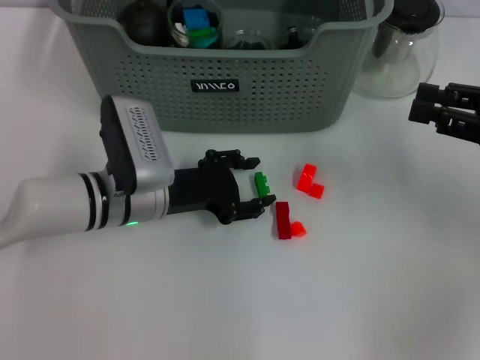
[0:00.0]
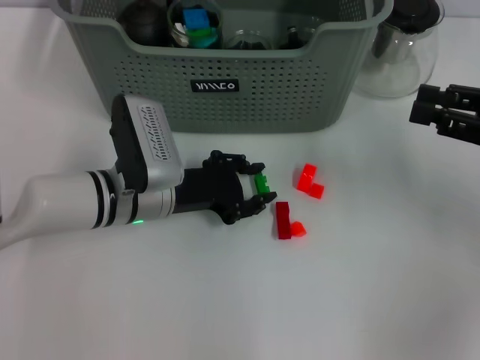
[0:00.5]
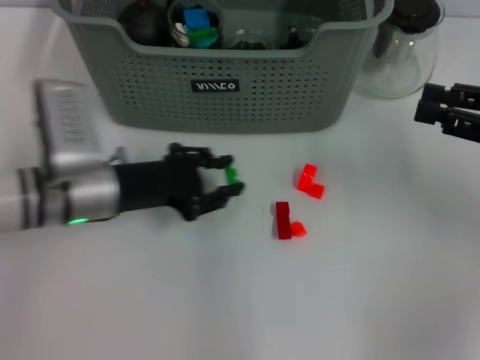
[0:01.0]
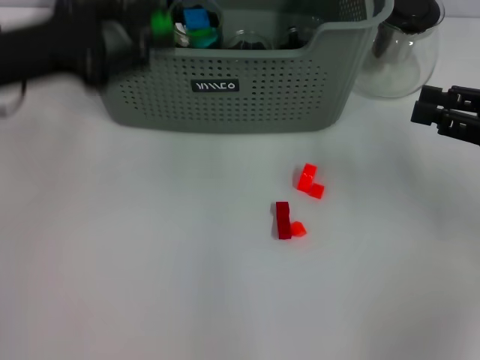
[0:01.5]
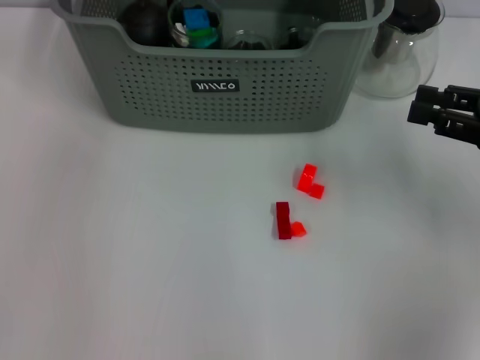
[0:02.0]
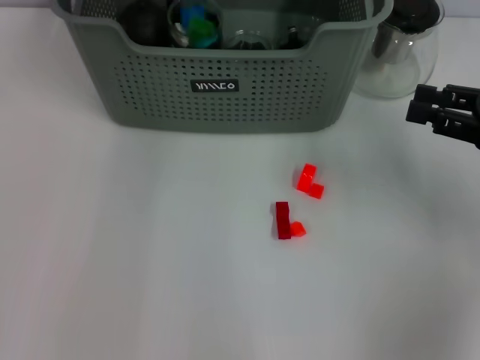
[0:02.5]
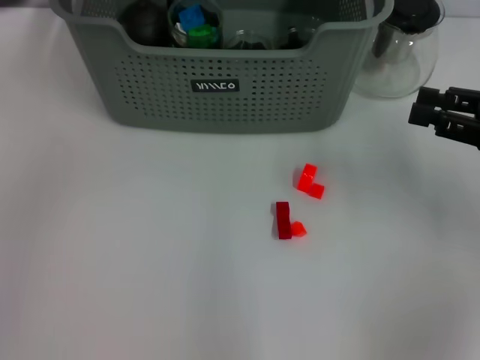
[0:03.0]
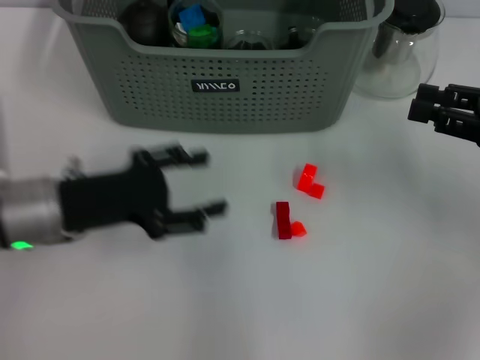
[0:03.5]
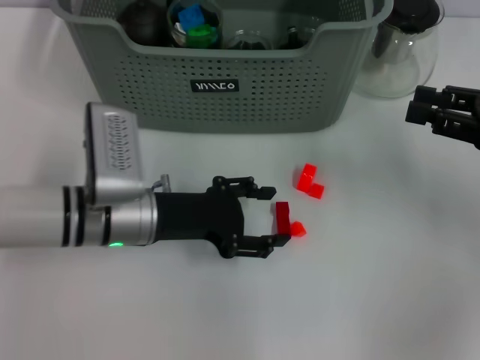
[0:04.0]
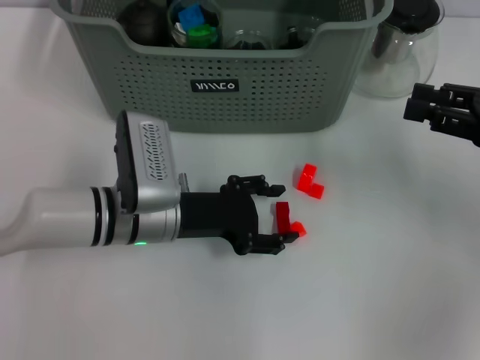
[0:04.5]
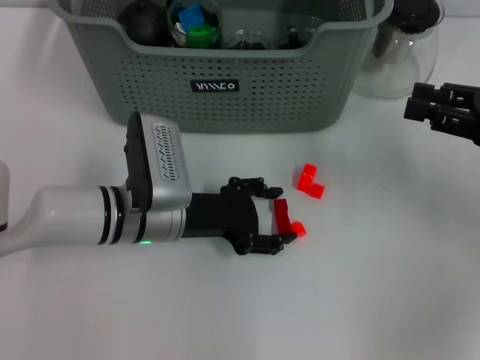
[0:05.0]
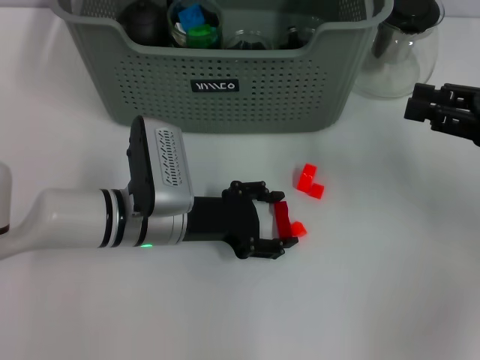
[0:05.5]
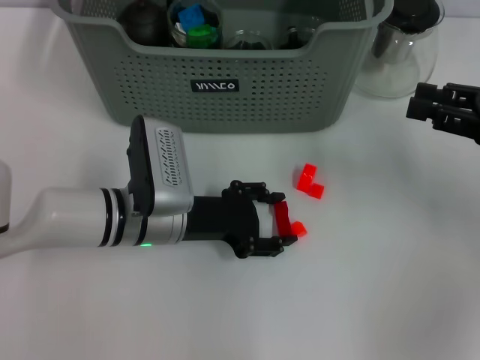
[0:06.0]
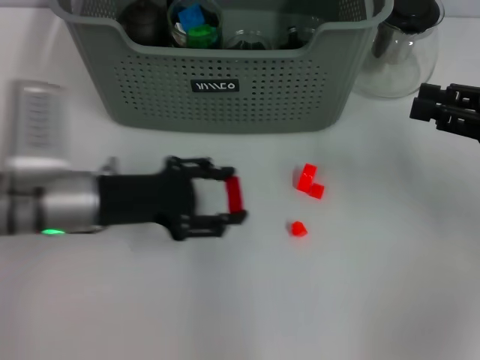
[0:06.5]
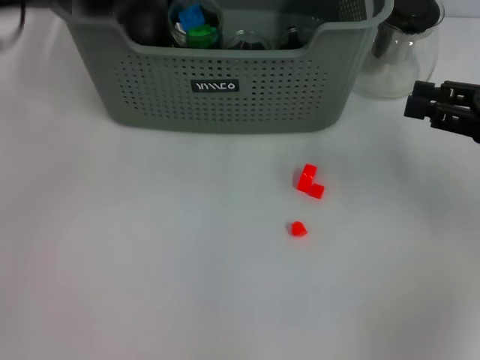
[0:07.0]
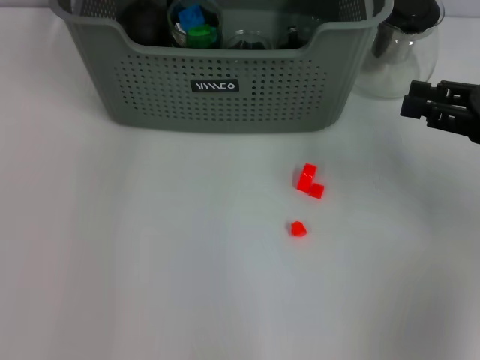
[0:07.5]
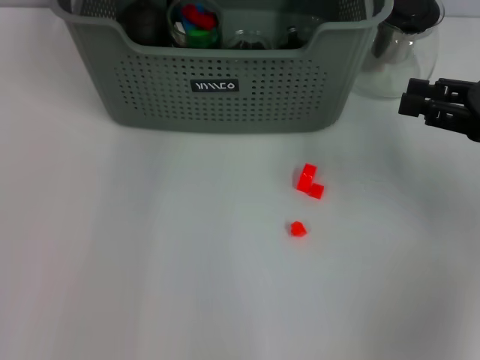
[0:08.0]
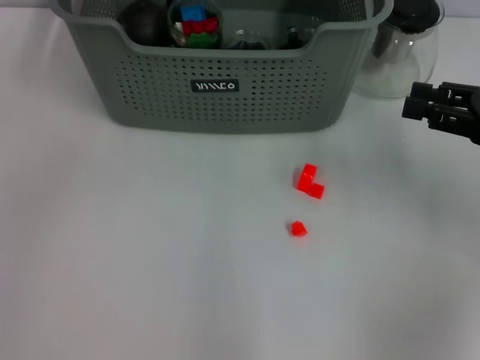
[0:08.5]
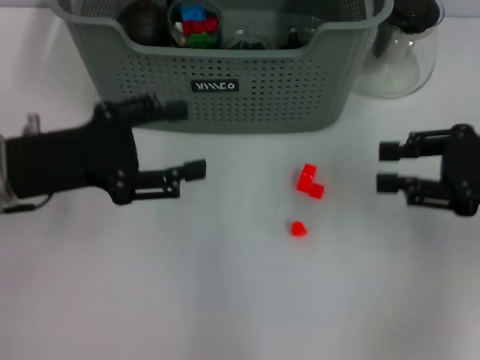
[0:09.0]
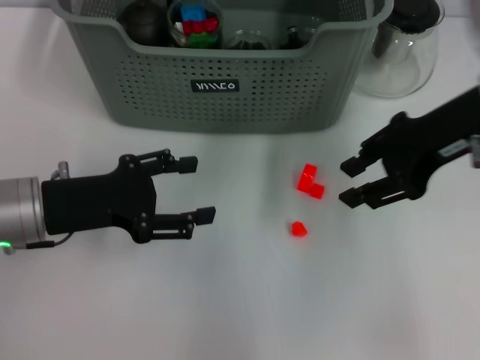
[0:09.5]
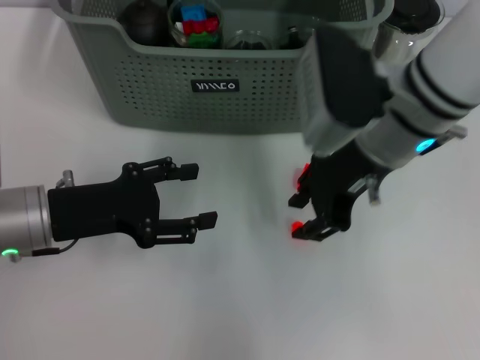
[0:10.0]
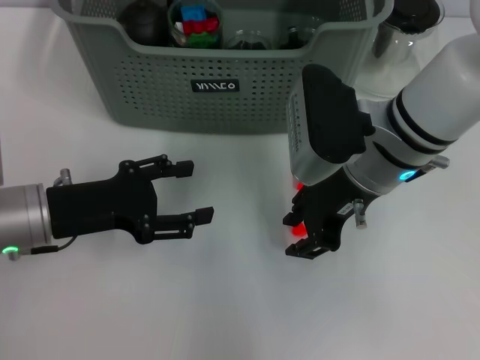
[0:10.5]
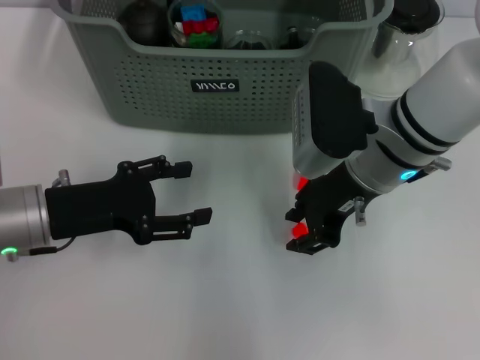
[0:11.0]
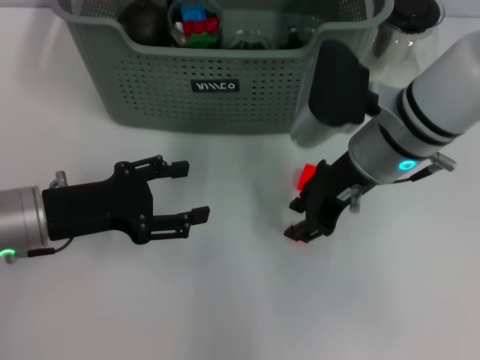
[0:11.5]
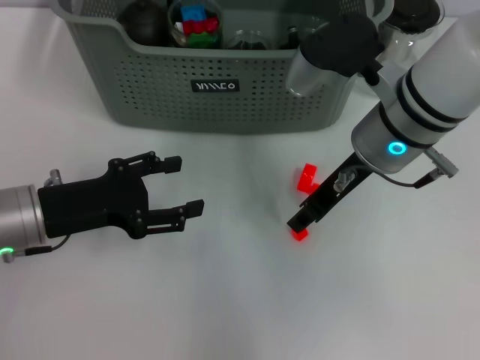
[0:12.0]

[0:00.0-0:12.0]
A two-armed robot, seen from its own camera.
Task of the whole recording: pick up the teacup on the table and place it into the storage bin, pick up the block on the table and place it into the storage bin.
Step, 1.0 to 2.5 s: Place the green block in the storage box with left gripper.
Step, 3.0 to 6.0 s: Grasp the red block with left gripper.
Step, 6.5 to 8.0 s: Place the red block in the storage box with left gripper.
0.0 to 2.0 s: The left gripper travels upward and forward by about 30 cm, and closes its fingers.
2.0 to 4.0 s: The left gripper travels downward and backward by roughly 30 cm, and opens up.
4.0 to 6.0 s: The grippers stay close to where they were, moving slightly.
6.0 to 8.0 s: The left gripper travels upward and forward by approximately 25 cm.
8.0 to 10.0 s: The left gripper moves backward, downward and to the left, about 30 cm. The right gripper is displaced to the left by approximately 20 cm.

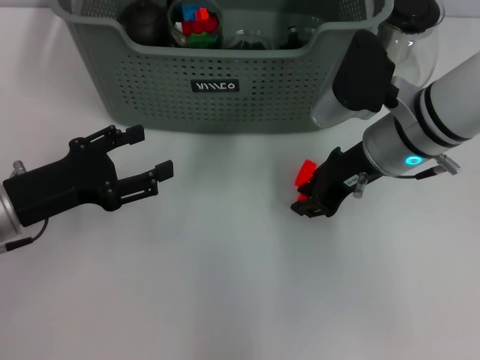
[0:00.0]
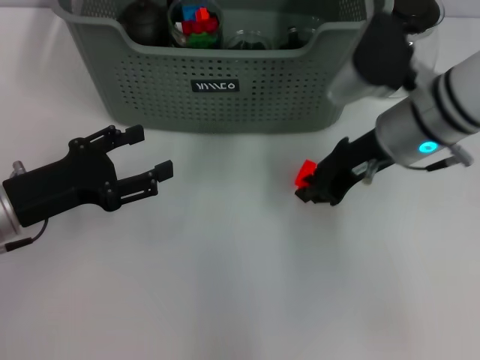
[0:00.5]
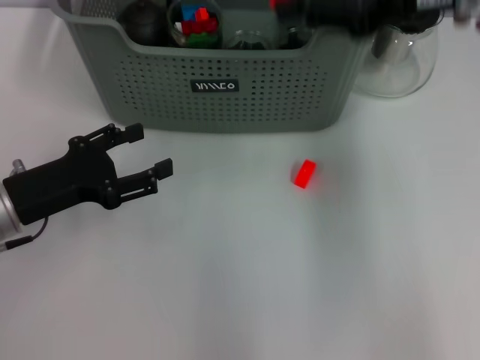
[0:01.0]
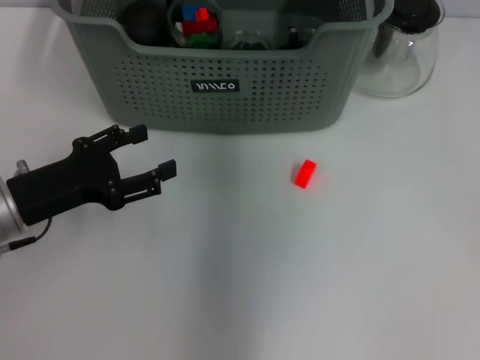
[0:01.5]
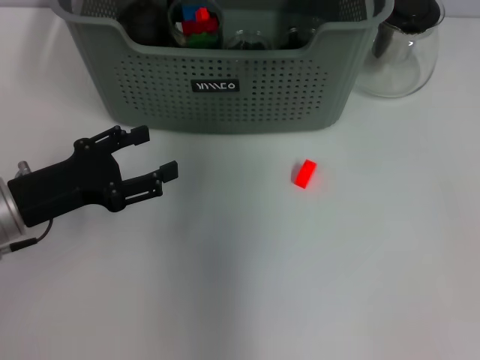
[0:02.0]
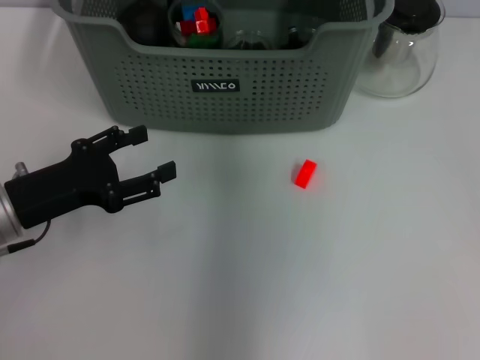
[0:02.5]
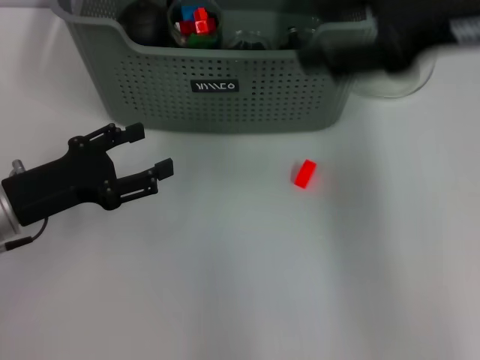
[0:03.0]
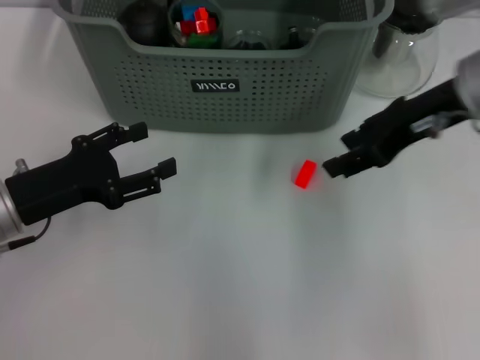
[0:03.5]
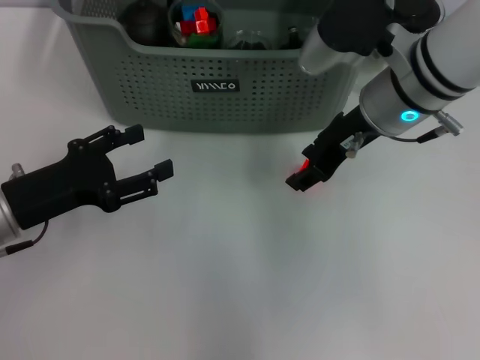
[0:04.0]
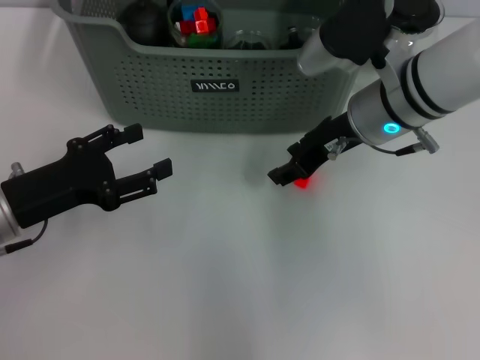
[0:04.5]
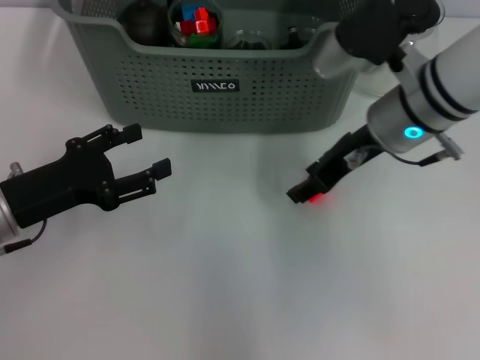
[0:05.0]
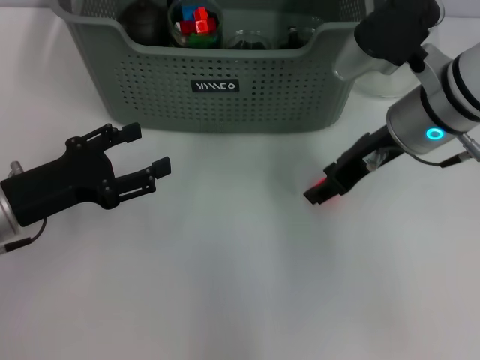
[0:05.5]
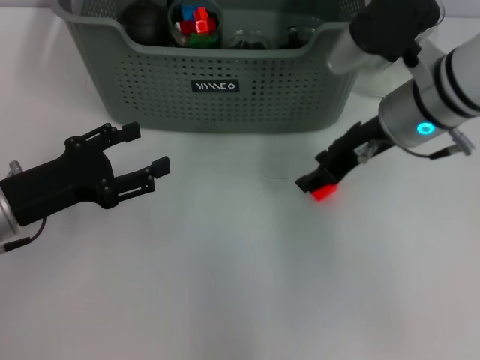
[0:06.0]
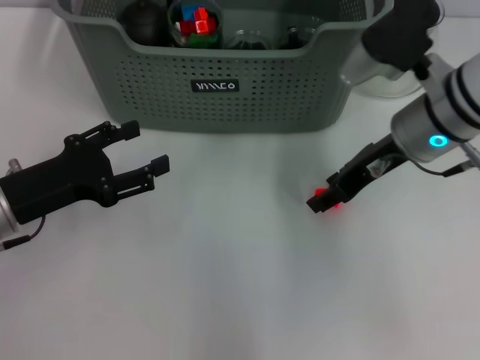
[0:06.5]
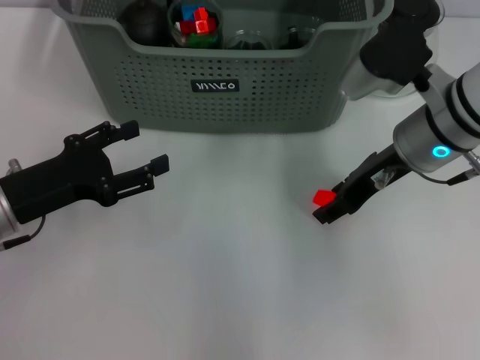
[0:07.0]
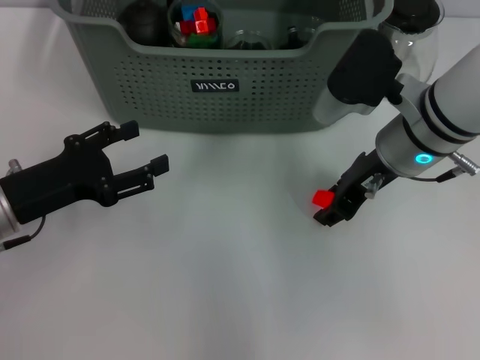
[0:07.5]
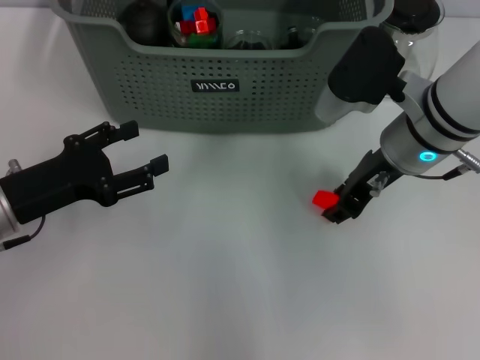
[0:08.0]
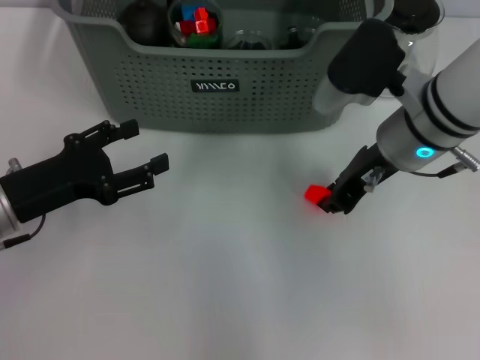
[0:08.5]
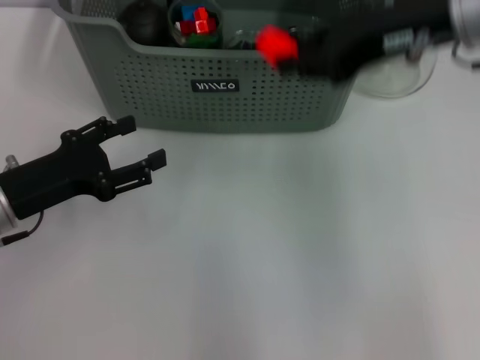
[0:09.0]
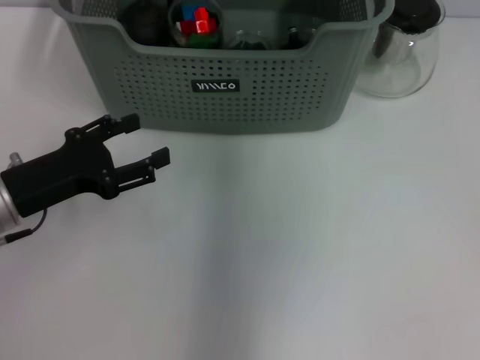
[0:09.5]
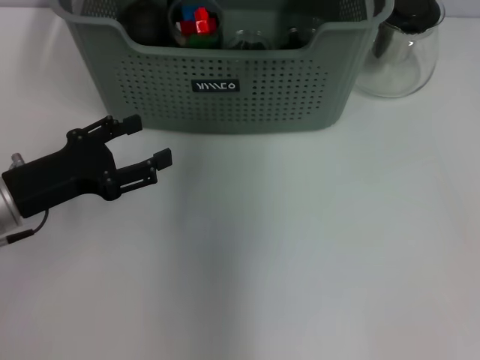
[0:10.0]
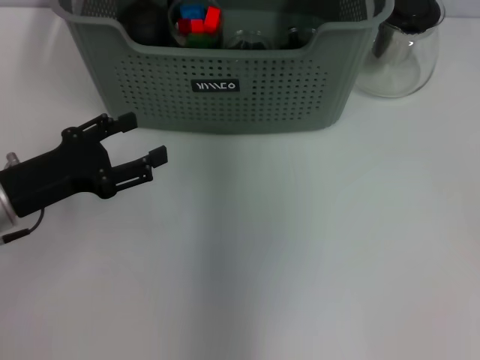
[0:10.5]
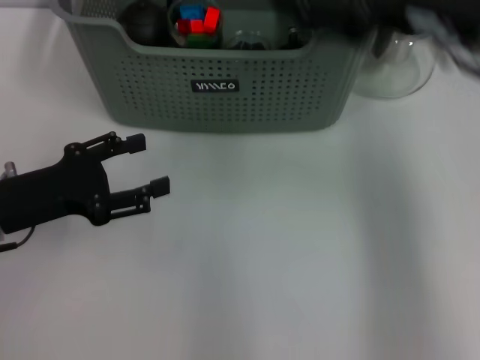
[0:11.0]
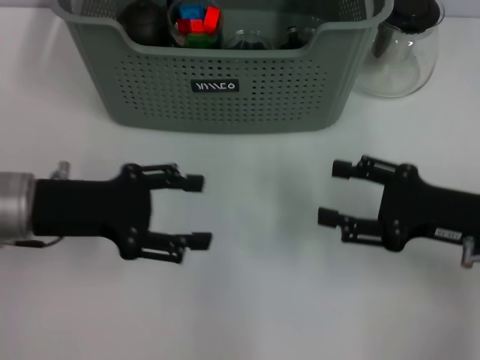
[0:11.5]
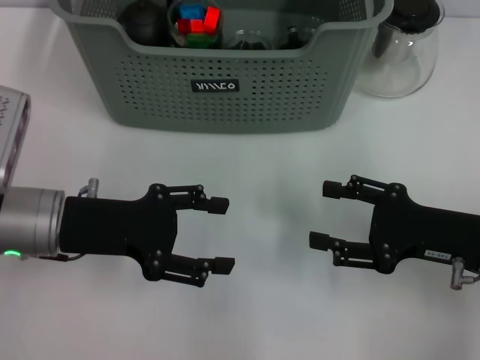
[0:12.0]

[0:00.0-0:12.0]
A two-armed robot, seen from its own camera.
Task of the whole recording: pick up the teacup on the table and place it into the storage bin, pick up the block on the table and place it into the storage bin.
Step, 0.5 to 2.0 s: Place the orange block in the storage box with right gripper.
Step, 2.5 to 8.0 s: Grasp the orange block with right gripper.
Step, 8.5 to 10.0 s: Place the orange block in the storage box with right gripper.
0.0 to 2.0 s: The right gripper goes roughly 20 cm upward, forward and to the left.
2.0 to 4.0 s: The right gripper goes some 15 cm backward, to the right and downward, and opens its fingers.
4.0 to 8.0 s: The grippers make only small movements.
8.0 to 10.0 s: The right gripper shifts some 20 cm forward, to the left and upward.
10.0 to 12.0 s: The right gripper travels backward, to the right and downward by approximately 35 cm, and opens its fingers.

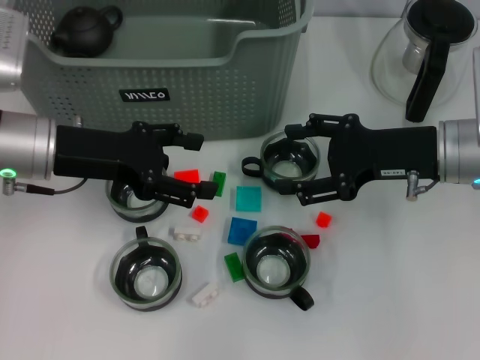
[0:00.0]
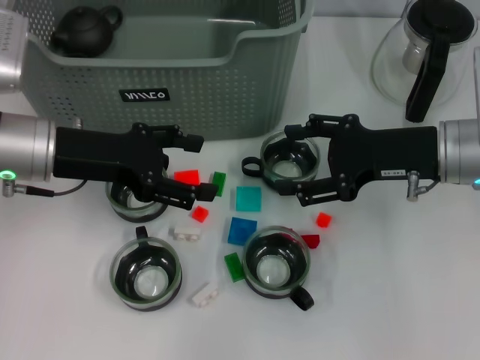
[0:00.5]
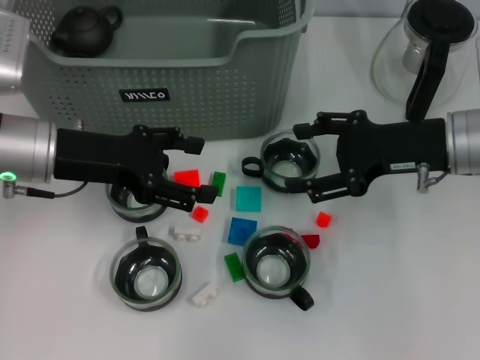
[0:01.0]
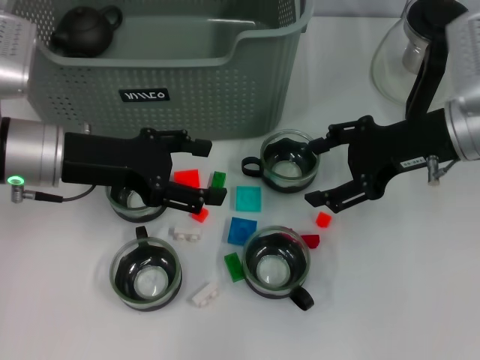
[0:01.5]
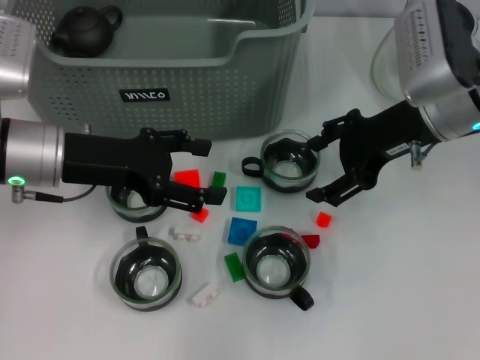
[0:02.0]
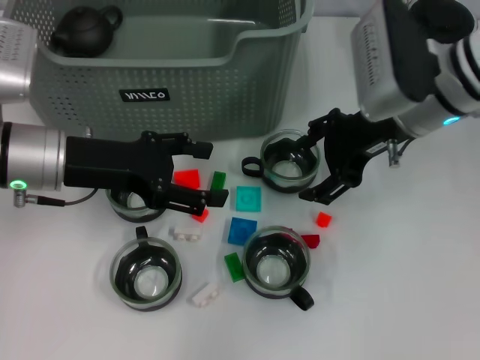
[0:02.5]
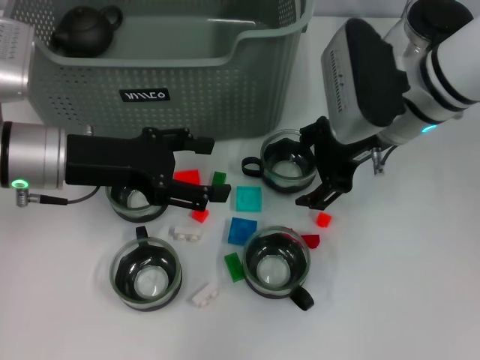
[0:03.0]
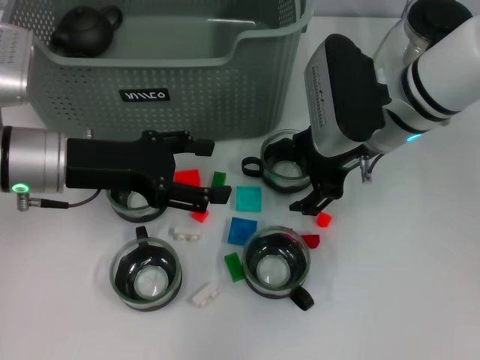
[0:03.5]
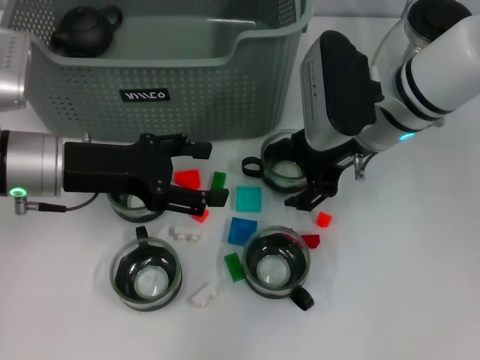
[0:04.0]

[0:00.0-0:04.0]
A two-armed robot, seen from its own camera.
Task of the whole recording: pick up the teacup on the table and place it into the storage bin, pick up the block on the table and place it into the storage bin.
0.0 to 2.0 s: The right gripper ends up some 5 cm from where it was.
2.0 to 4.0 s: The right gripper is displaced to the left by roughly 5 cm.
